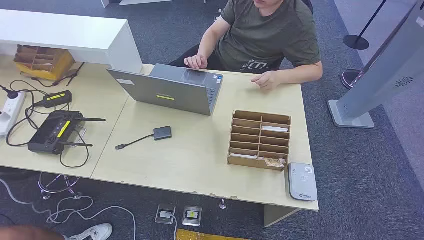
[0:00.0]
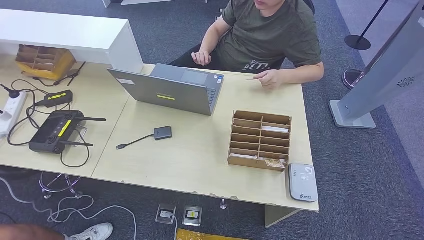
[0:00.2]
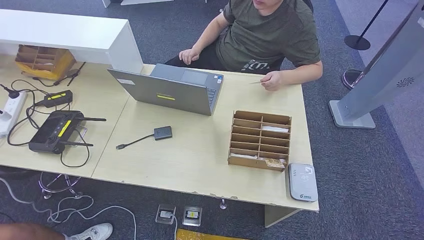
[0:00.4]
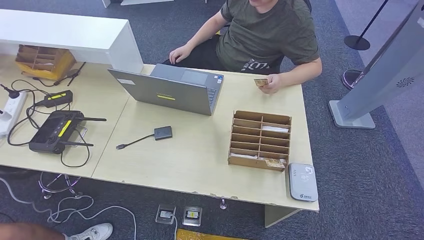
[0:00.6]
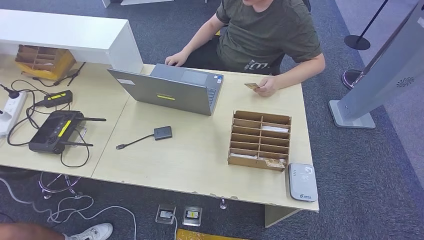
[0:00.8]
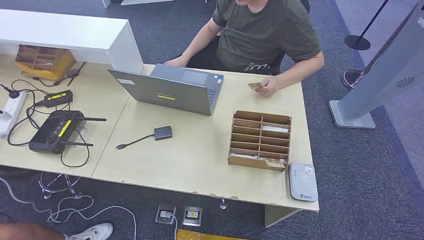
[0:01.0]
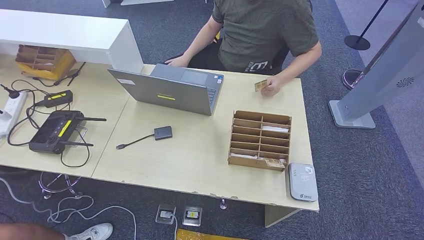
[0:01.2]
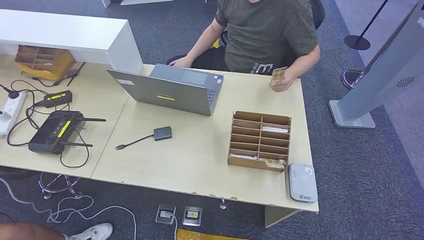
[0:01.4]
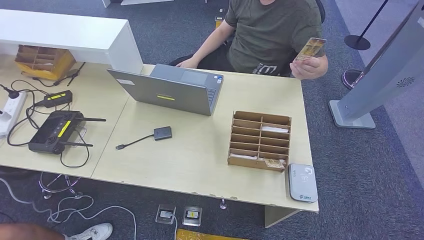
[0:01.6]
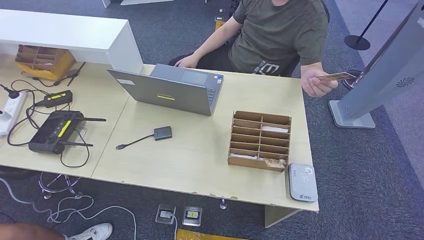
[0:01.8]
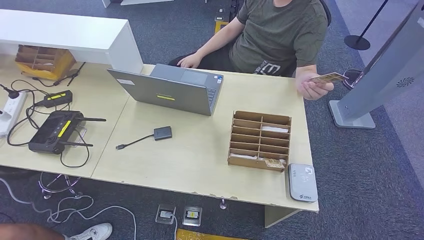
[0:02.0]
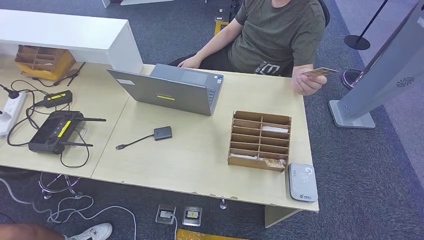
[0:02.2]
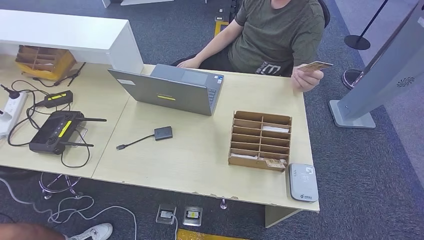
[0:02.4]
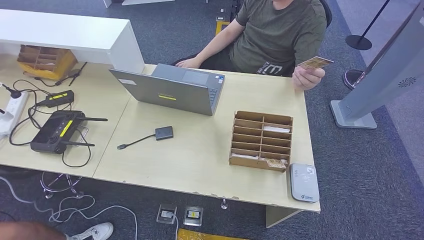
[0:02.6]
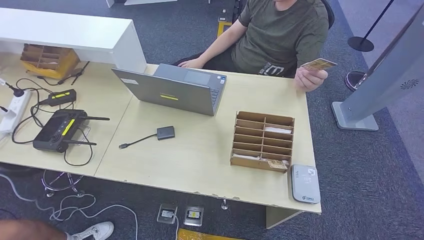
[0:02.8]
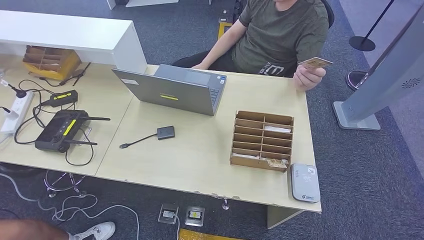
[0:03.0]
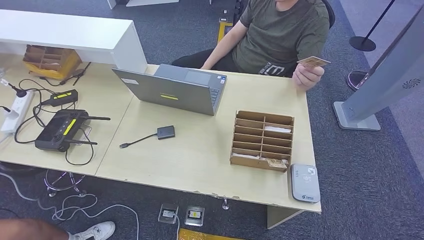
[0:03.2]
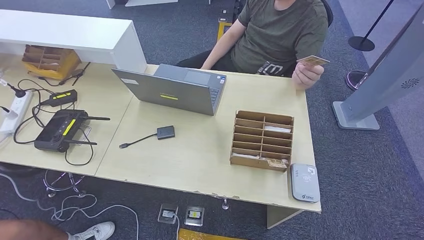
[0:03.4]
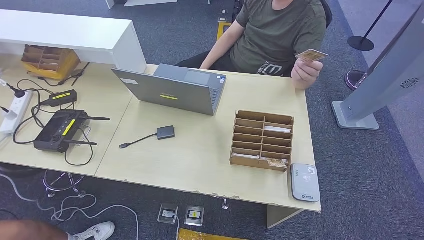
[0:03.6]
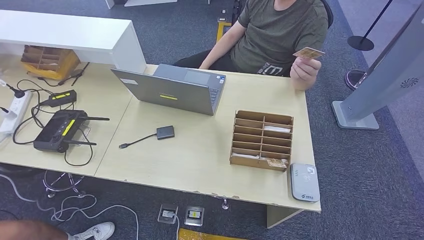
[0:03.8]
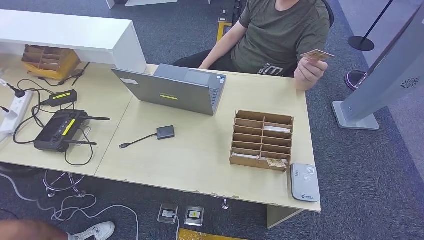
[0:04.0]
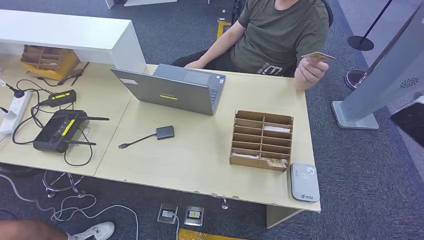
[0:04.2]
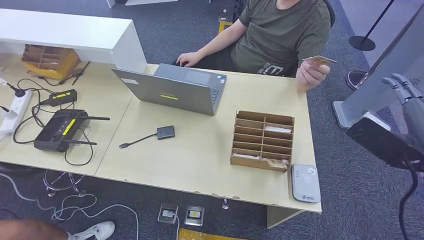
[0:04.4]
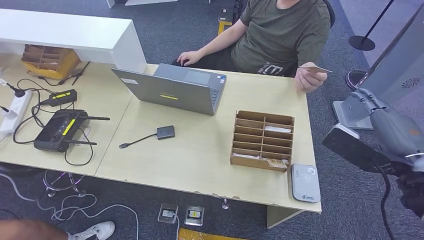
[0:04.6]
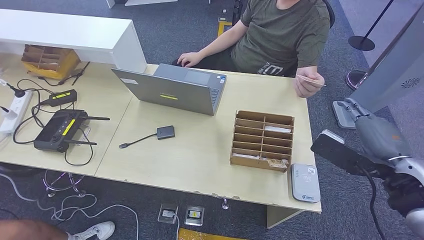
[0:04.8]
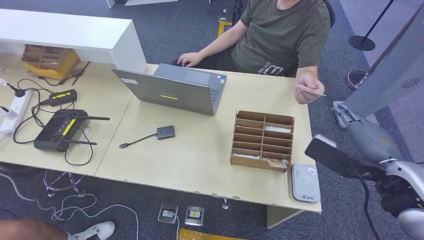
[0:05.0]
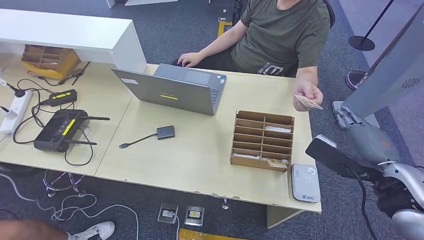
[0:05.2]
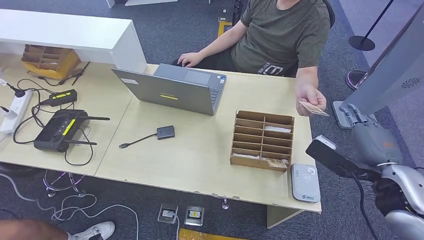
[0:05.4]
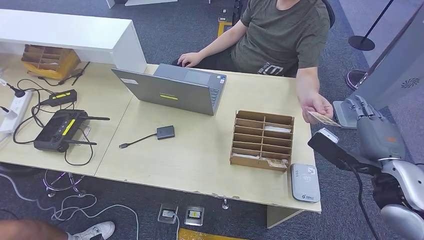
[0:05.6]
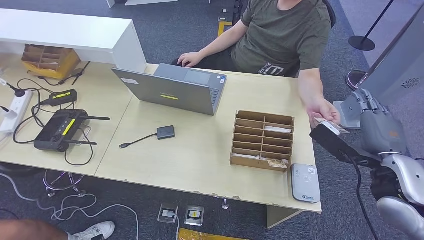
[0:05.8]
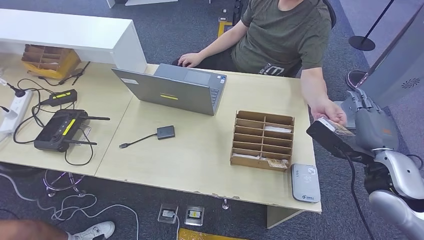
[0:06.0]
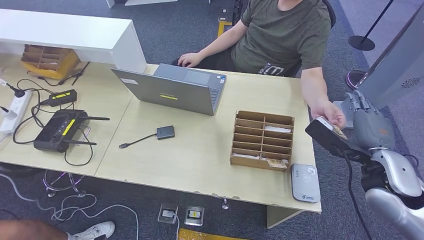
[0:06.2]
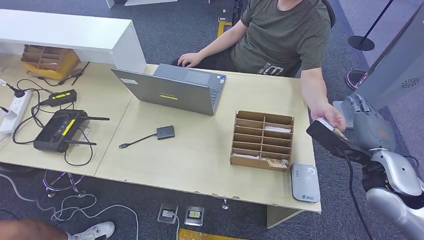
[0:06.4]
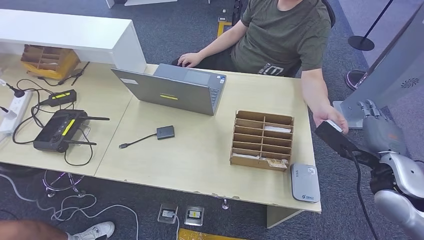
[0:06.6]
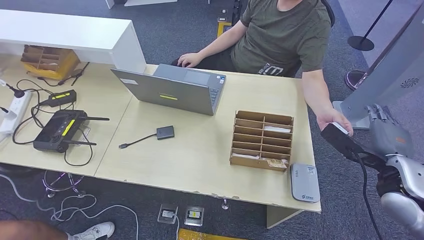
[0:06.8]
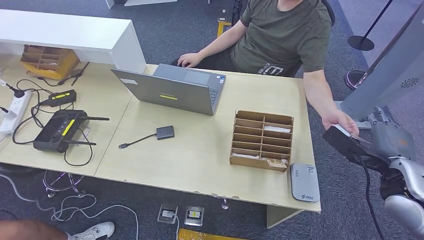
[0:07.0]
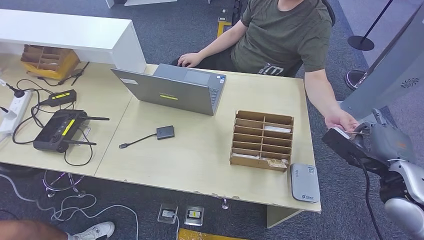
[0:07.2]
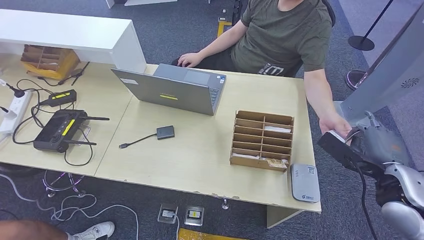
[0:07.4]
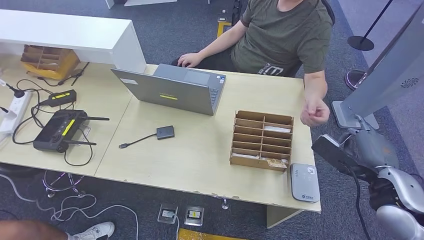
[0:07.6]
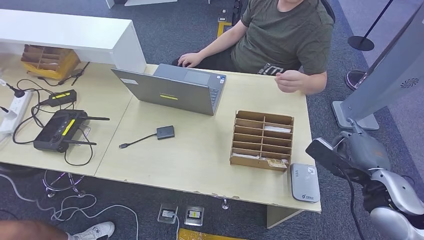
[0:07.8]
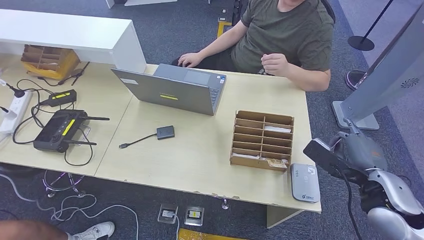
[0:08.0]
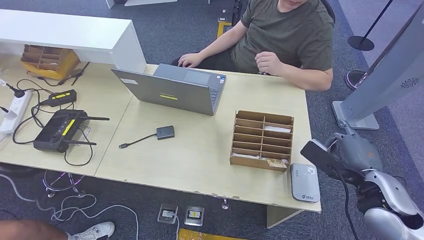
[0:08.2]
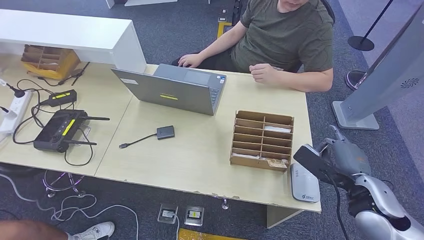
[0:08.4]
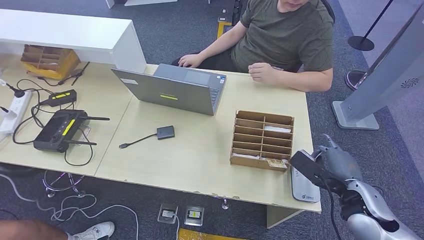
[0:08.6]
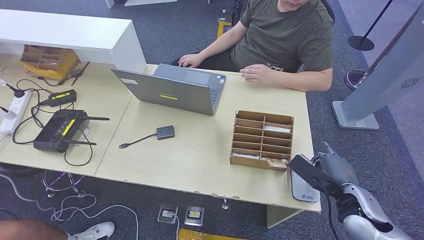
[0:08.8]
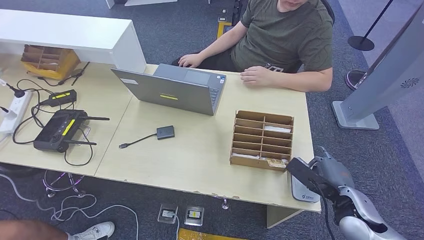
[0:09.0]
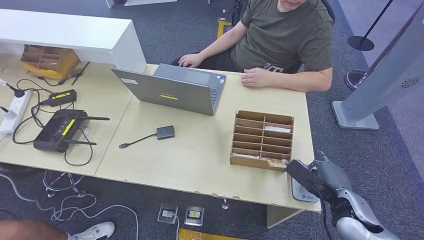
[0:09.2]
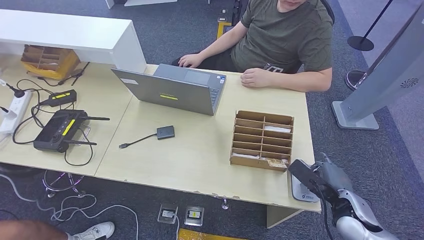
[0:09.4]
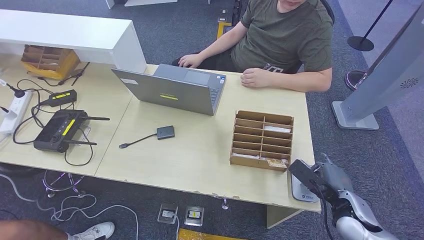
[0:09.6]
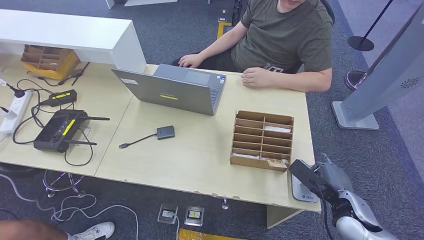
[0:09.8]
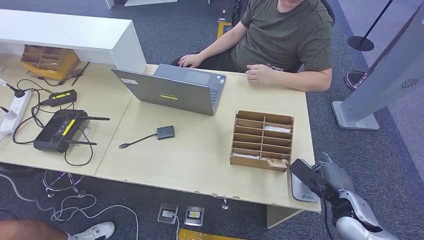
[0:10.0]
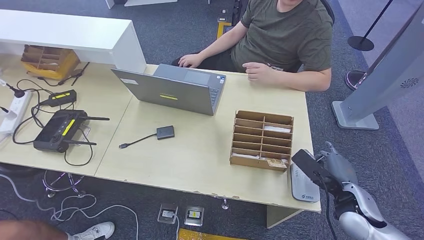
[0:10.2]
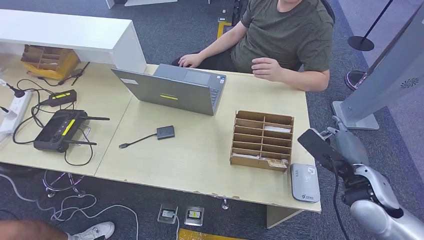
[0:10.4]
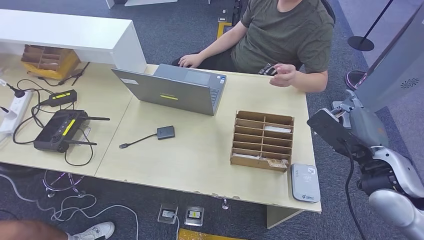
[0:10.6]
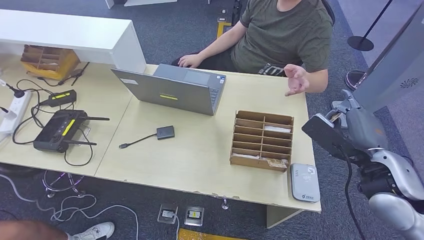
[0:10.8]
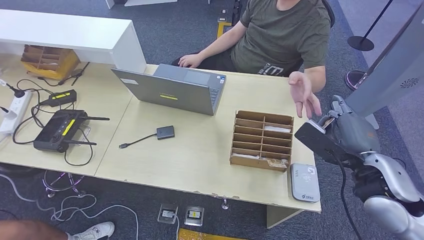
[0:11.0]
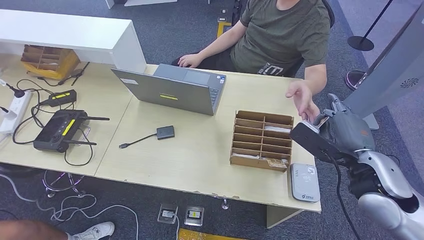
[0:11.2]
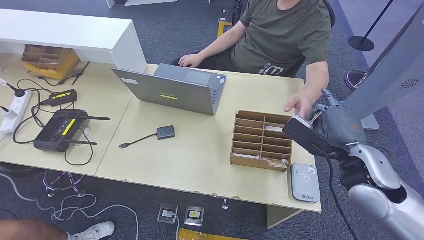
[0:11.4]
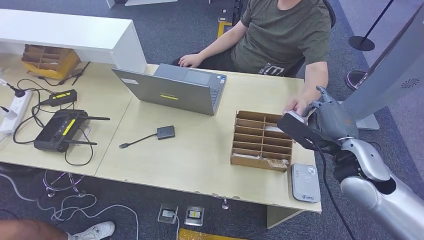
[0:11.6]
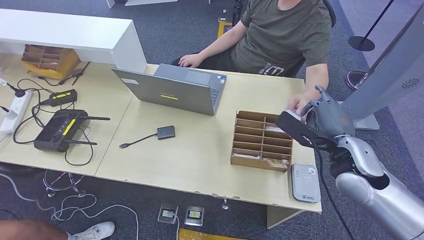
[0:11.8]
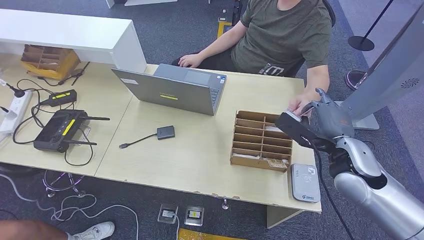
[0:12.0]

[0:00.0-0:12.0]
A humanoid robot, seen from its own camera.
Step, 0:00.0 to 0:06.4: Take the ID card from the person's hand.
Step, 0:06.8 to 0:10.0: Place the ID card on the card reader.
0:01.6 to 0:03.0: The right hand heads upward and to the right, covering about 35 cm.
0:03.0 to 0:04.4: The right hand shifts approximately 35 cm to the left, upward and forward.
0:04.4 to 0:06.0: The right hand heads downward and forward, covering approximately 10 cm.
0:06.0 to 0:07.6: The hands stay close to where they were, moving slightly.
0:07.6 to 0:09.0: The right hand heads downward, covering some 10 cm.
0:09.0 to 0:10.4: The right hand heads upward, covering some 5 cm.
0:10.4 to 0:12.0: The right hand changes place by some 10 cm.

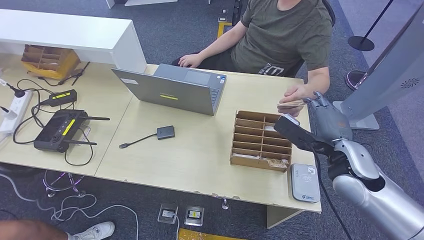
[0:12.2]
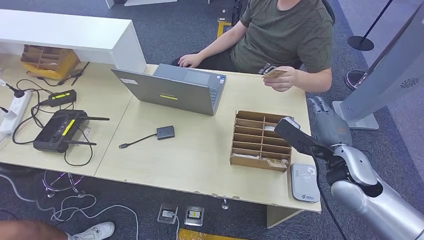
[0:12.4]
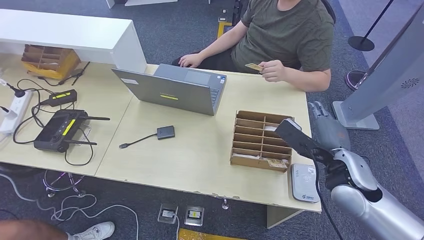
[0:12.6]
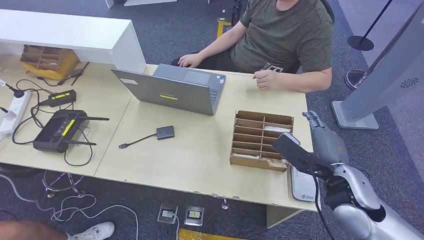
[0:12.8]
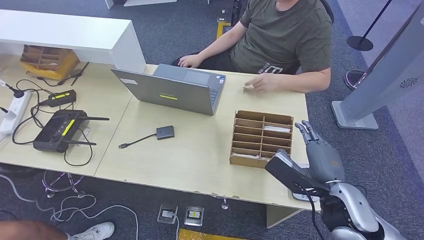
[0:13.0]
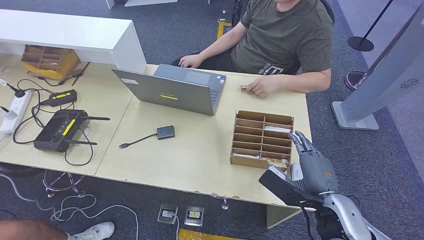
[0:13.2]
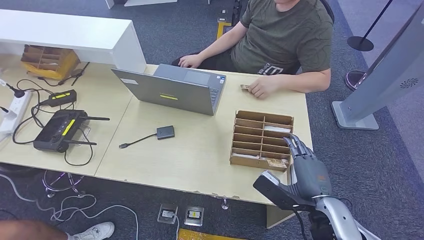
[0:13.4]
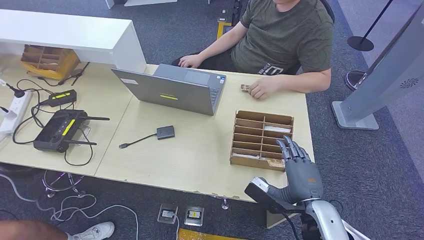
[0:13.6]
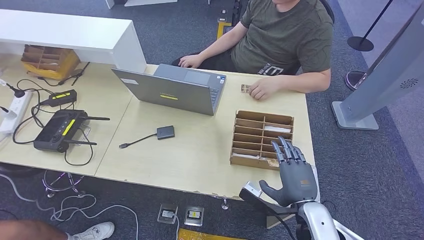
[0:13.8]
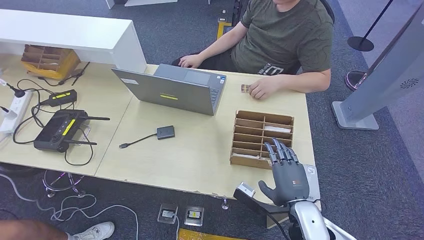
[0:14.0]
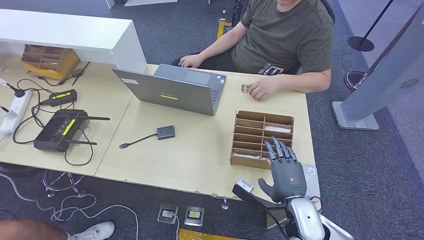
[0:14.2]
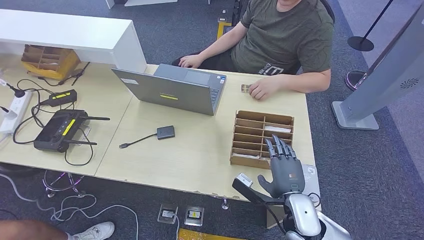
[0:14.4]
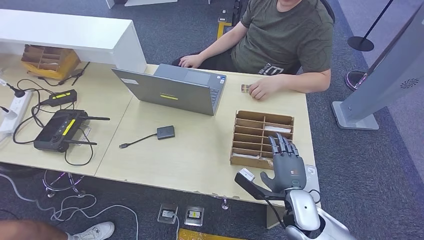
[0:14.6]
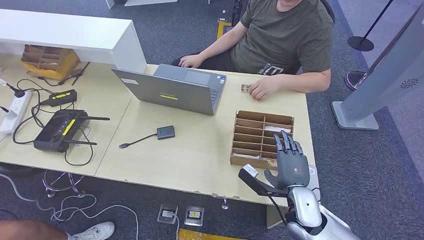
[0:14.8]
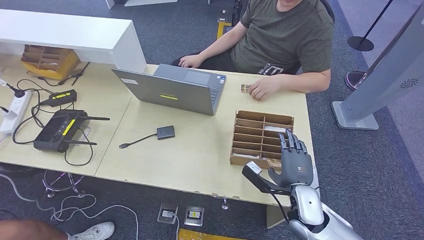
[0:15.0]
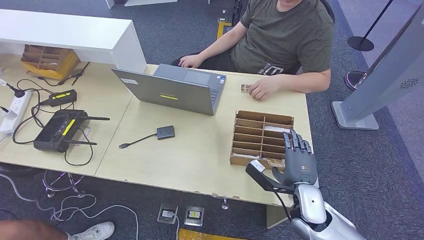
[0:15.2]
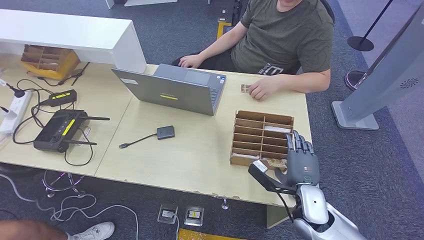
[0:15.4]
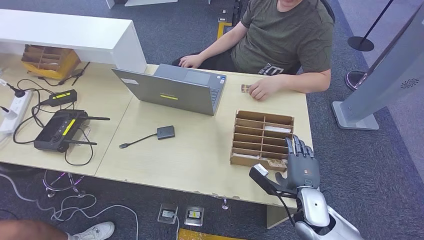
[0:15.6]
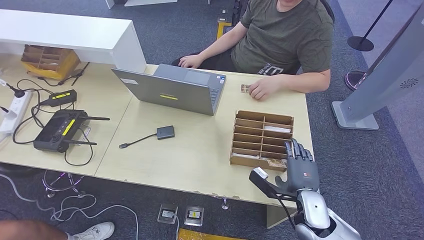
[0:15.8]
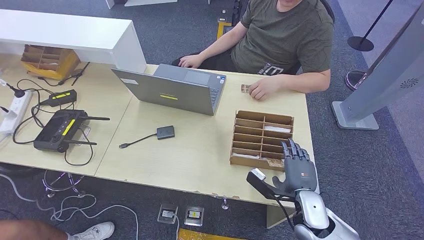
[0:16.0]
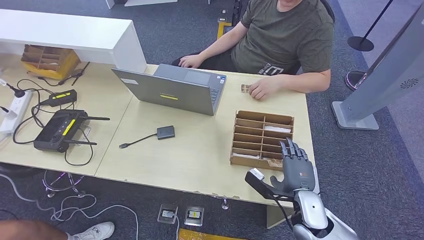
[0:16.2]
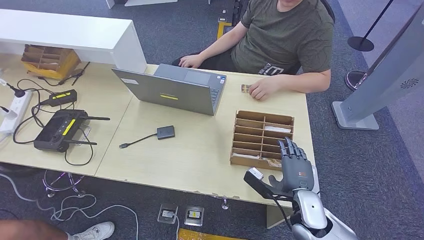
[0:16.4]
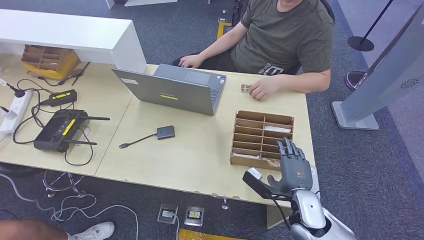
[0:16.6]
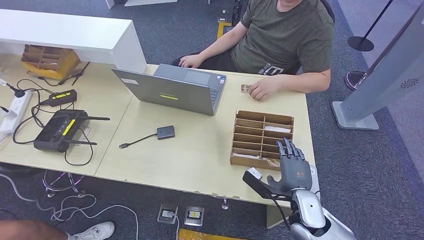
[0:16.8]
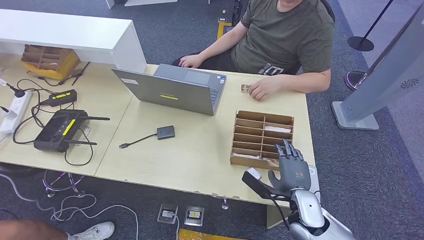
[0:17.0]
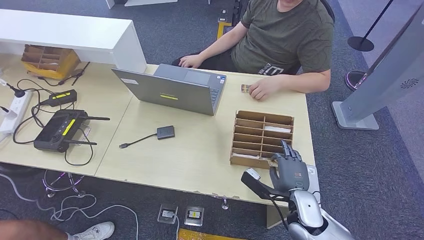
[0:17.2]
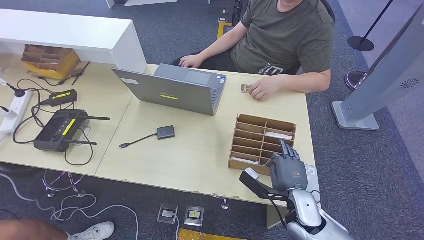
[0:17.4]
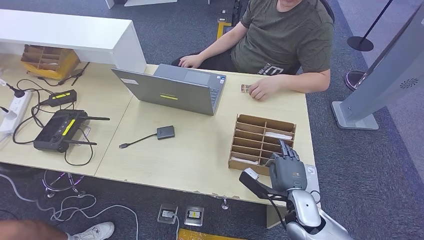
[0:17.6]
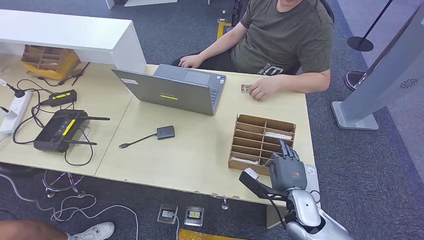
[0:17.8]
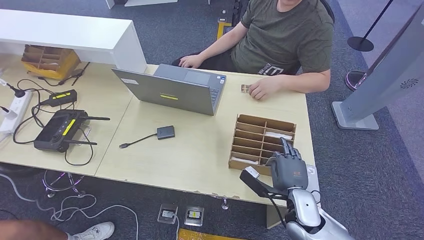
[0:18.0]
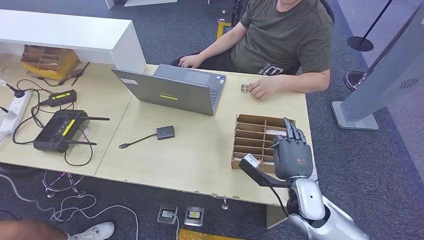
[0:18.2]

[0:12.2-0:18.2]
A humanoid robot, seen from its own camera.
0:12.2 to 0:13.8: The right hand is displaced downward, backward and to the left by some 15 cm.
0:13.8 to 0:15.2: The right hand ends up about 5 cm from where it was.
0:15.2 to 0:18.2: There are only small adjustments of the hands.
